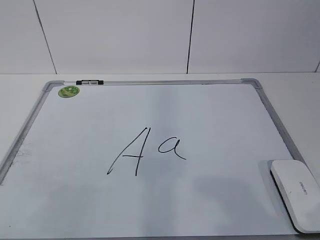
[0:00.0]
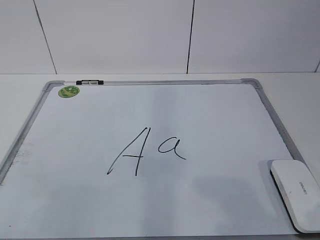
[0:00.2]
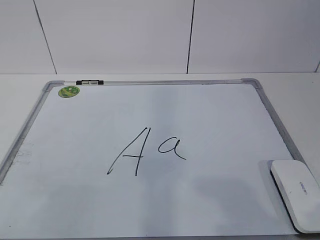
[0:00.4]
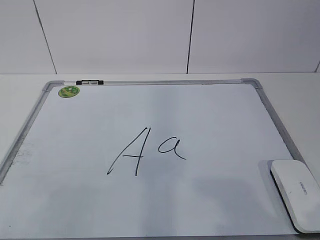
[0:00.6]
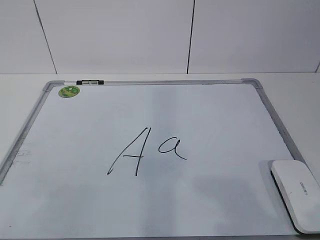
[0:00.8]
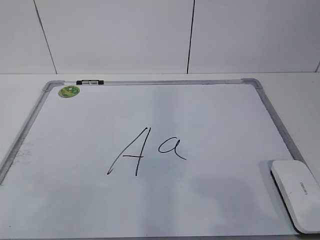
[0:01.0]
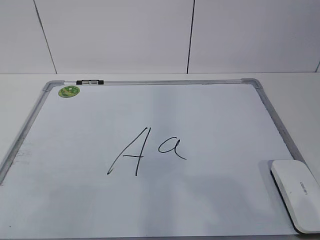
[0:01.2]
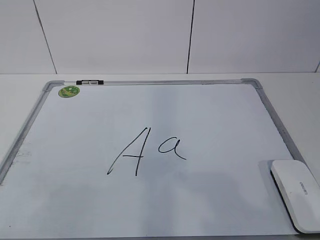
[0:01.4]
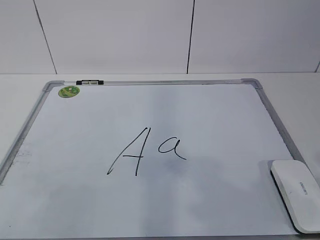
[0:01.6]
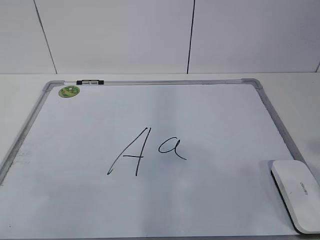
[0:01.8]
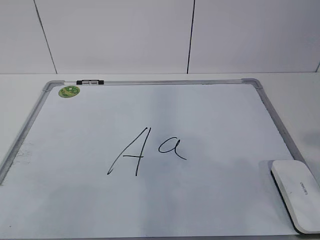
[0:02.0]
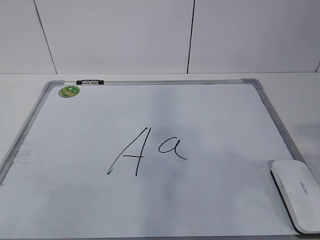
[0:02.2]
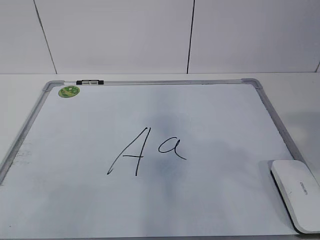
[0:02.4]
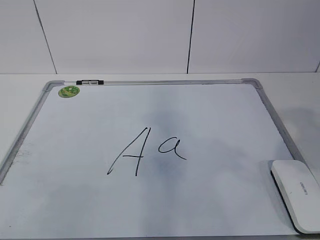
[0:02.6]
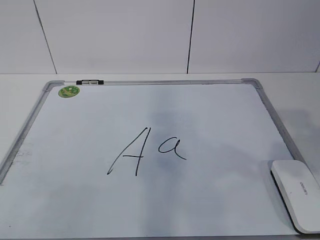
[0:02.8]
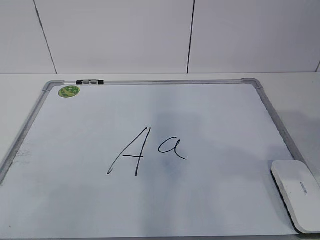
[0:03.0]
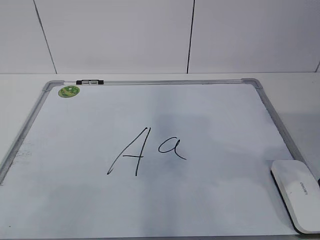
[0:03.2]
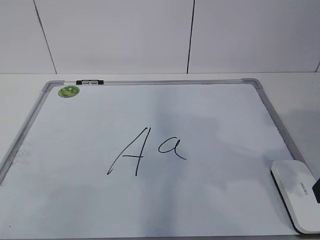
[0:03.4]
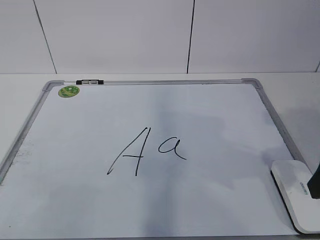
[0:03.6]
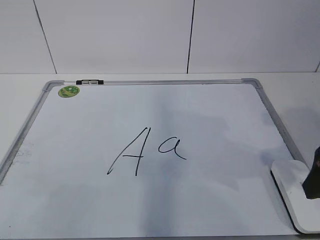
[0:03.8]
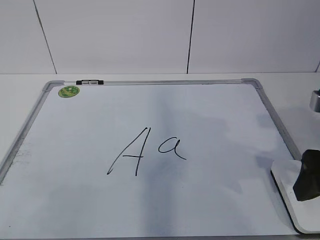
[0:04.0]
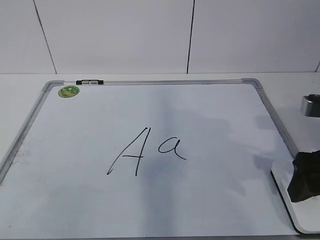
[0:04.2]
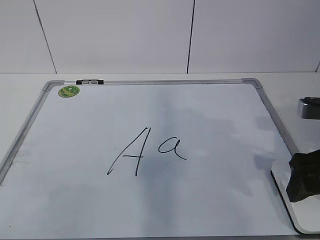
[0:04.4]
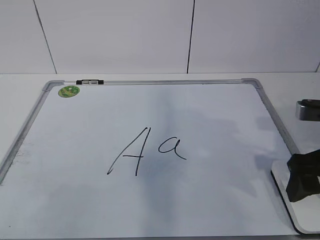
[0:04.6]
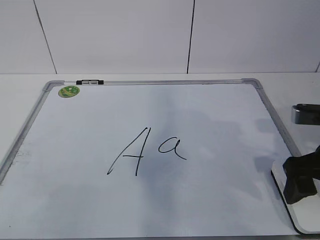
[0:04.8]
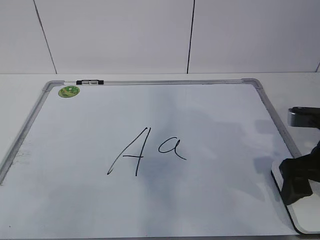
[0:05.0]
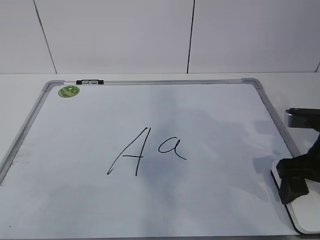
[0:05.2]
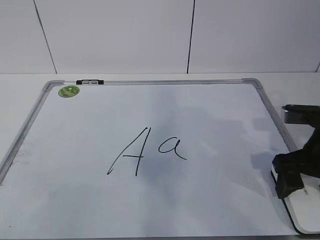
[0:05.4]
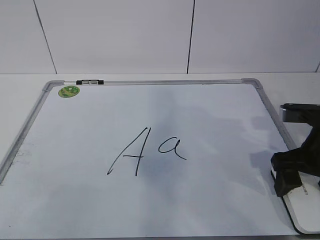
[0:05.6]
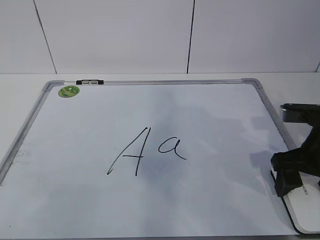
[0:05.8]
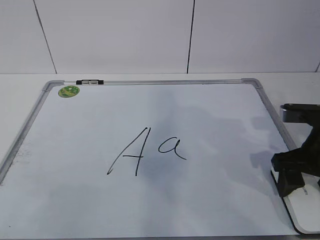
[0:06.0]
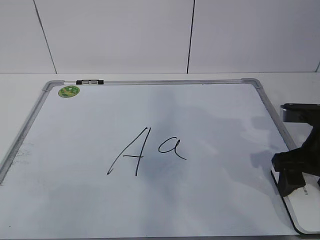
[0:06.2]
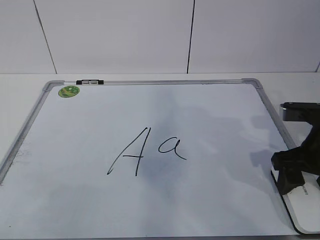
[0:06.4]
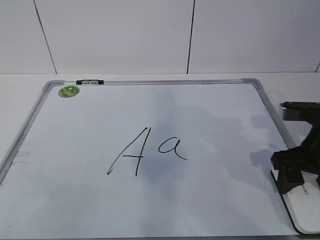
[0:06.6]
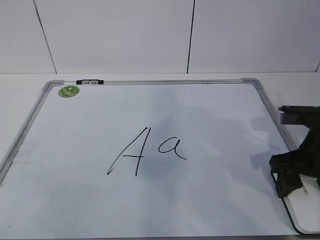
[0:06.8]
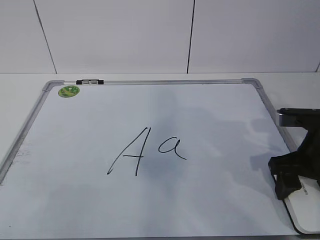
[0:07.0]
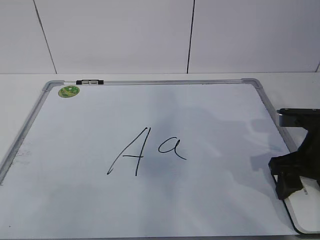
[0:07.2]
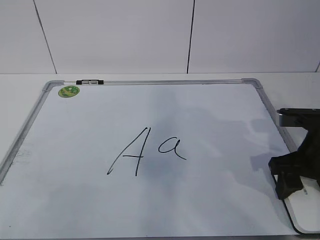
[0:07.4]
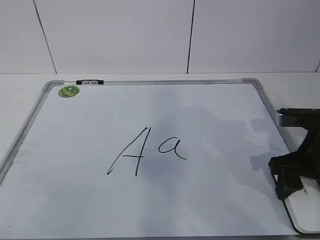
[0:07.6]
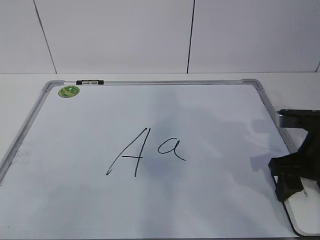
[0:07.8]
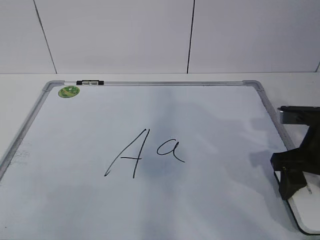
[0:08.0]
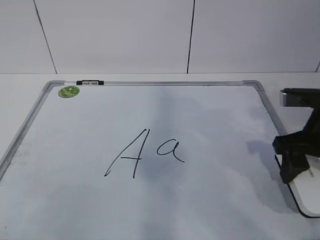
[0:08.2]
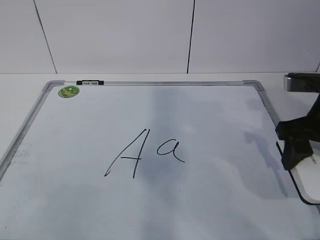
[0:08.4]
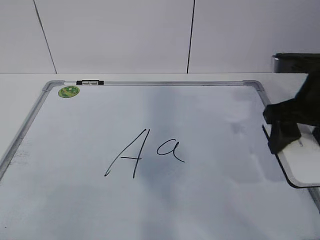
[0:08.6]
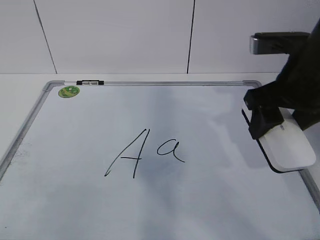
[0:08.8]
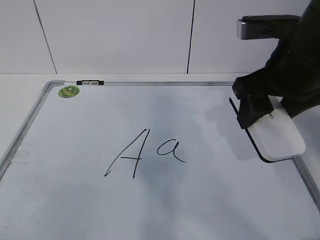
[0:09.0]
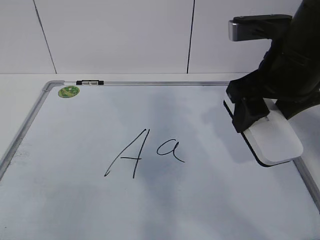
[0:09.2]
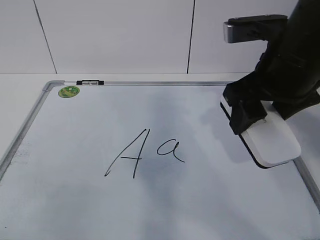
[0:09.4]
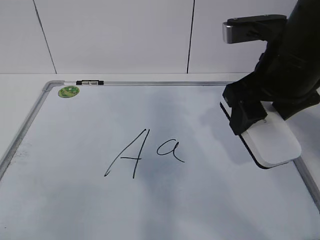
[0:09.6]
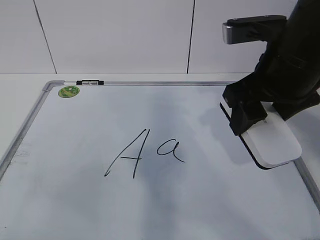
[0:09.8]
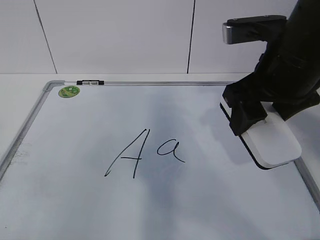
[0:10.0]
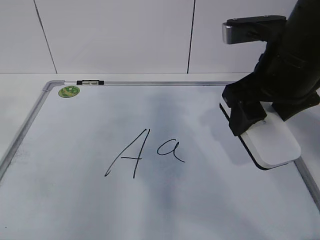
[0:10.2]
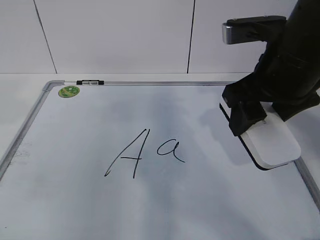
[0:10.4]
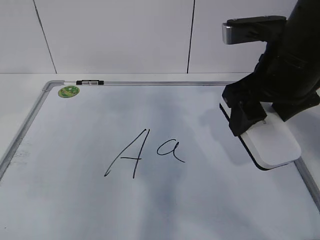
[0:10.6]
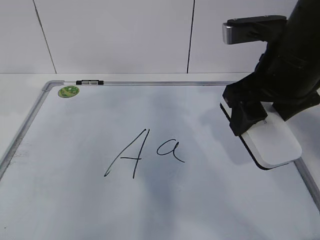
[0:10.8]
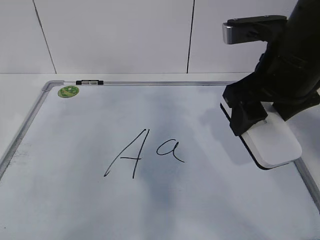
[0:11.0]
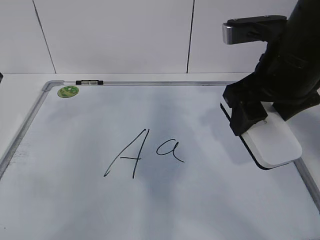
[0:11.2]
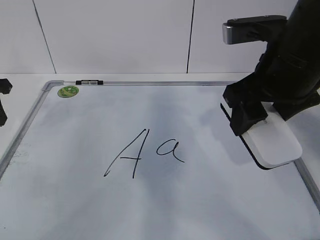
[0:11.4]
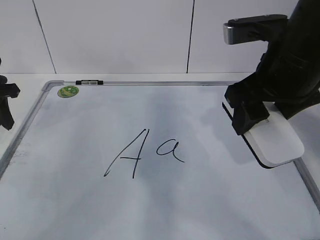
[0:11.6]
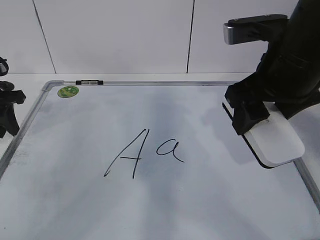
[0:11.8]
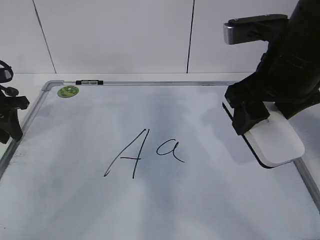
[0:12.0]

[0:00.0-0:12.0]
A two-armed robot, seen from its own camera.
Task of the whole recording: pick up the eraser on the blackboard and erase the letter "a".
Step, 0:00.0 to 0:05.6: Grab the eraser with your right hand.
Step, 0:05.8 to 0:10.6: Hold the drawing board steady with your left hand.
0:03.0 to 0:04.4: The right gripper is displaced downward and forward by approximately 10 cm.
0:04.4 to 0:06.0: The right gripper closes.
0:06.0 to 0:07.6: The right gripper closes up.
0:07.6 to 0:09.0: The right gripper is displaced upward and to the left by approximately 15 cm.
0:10.4 to 0:12.0: The left gripper travels forward and downward by some 30 cm.

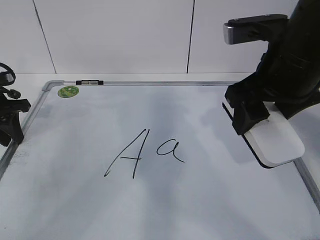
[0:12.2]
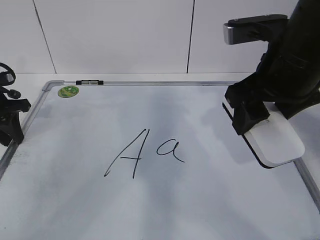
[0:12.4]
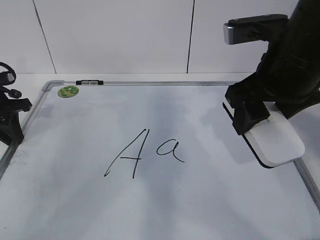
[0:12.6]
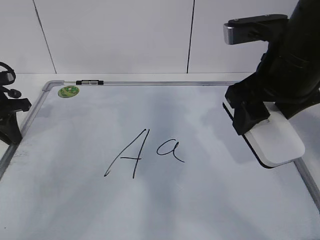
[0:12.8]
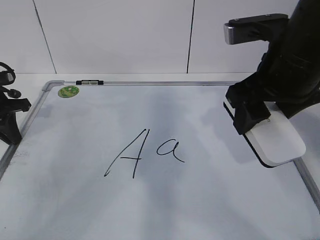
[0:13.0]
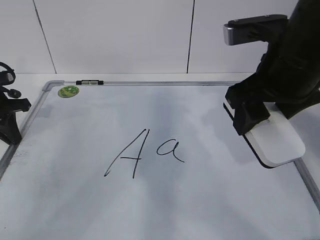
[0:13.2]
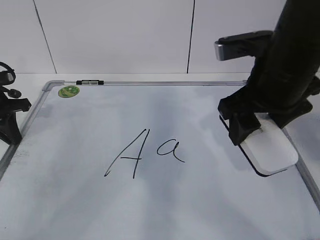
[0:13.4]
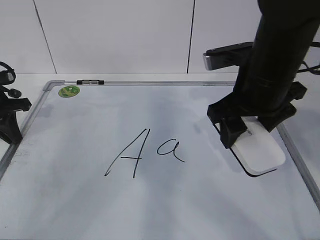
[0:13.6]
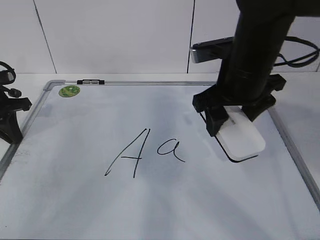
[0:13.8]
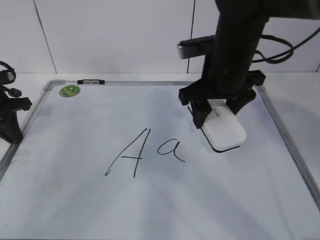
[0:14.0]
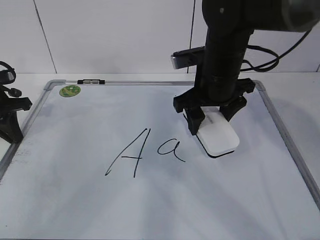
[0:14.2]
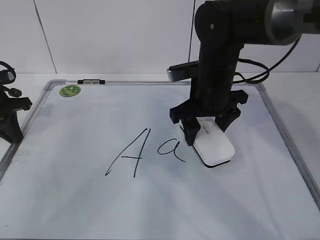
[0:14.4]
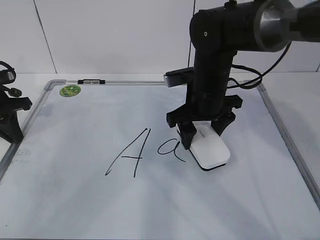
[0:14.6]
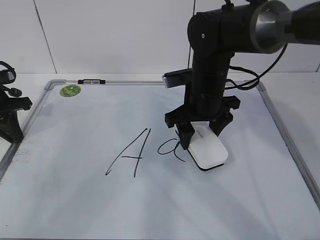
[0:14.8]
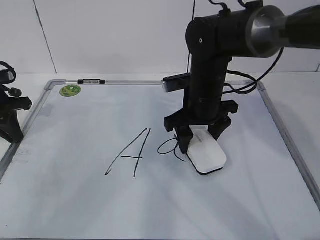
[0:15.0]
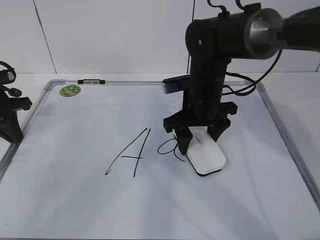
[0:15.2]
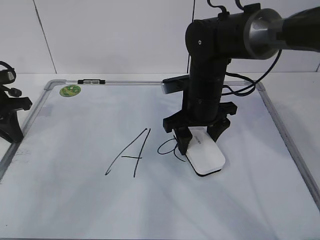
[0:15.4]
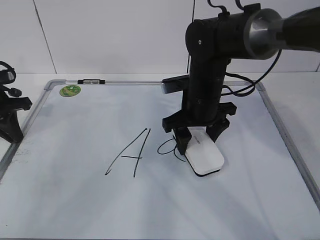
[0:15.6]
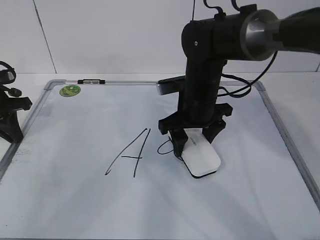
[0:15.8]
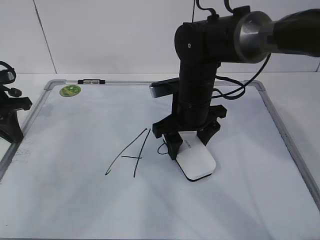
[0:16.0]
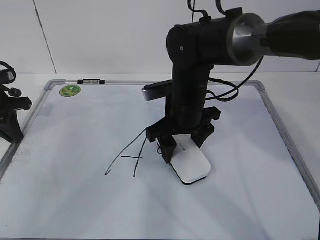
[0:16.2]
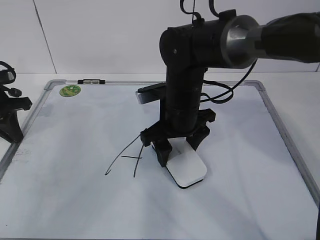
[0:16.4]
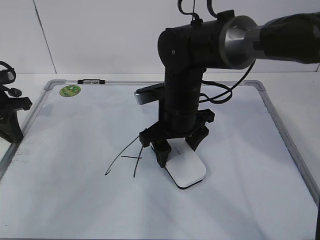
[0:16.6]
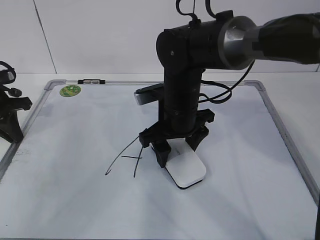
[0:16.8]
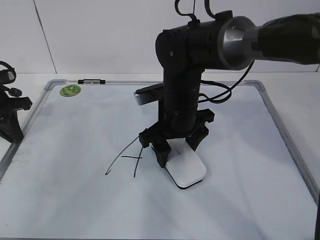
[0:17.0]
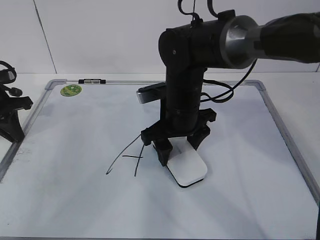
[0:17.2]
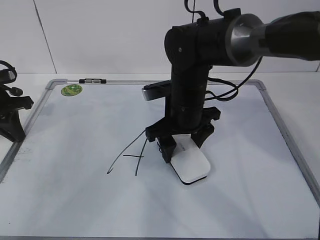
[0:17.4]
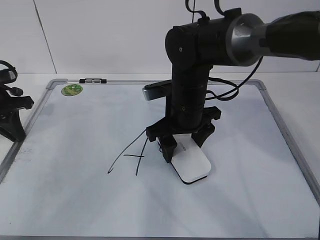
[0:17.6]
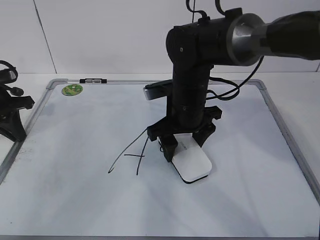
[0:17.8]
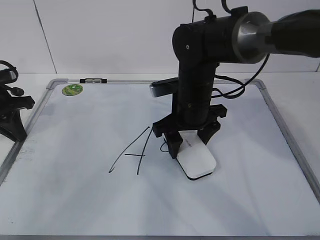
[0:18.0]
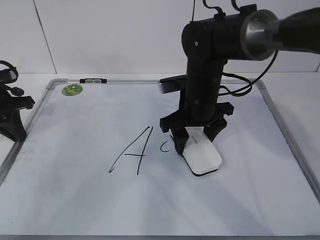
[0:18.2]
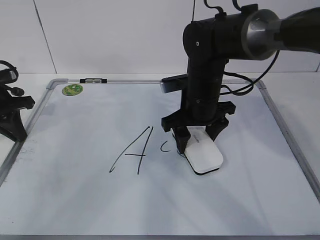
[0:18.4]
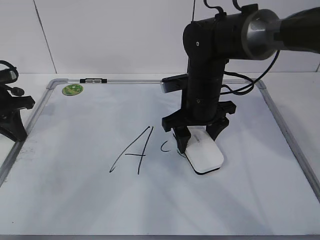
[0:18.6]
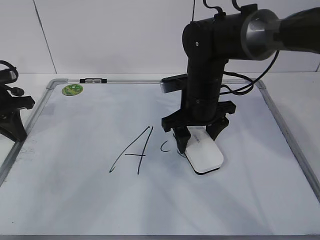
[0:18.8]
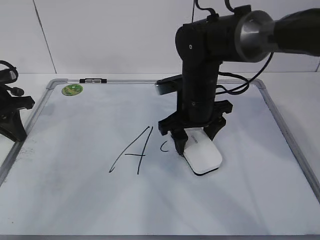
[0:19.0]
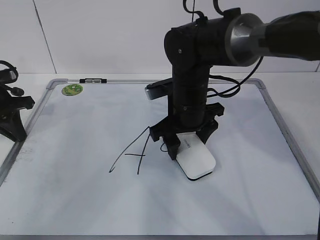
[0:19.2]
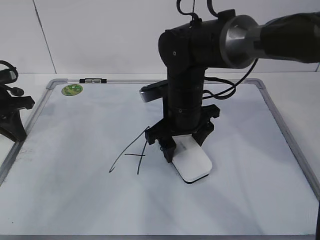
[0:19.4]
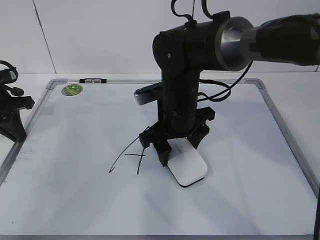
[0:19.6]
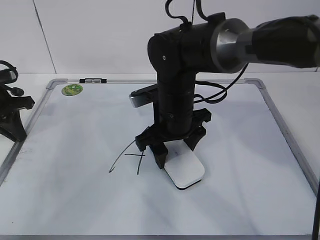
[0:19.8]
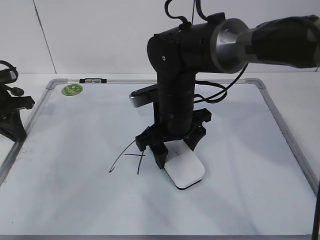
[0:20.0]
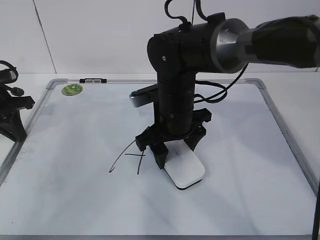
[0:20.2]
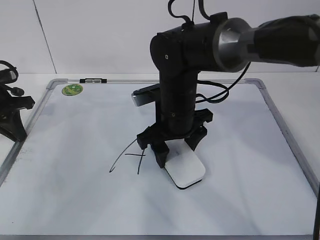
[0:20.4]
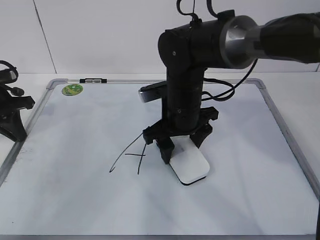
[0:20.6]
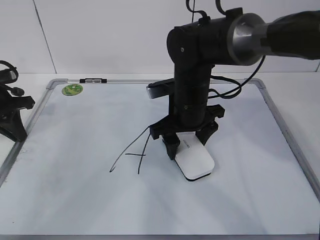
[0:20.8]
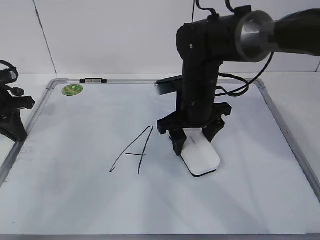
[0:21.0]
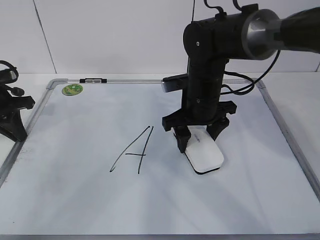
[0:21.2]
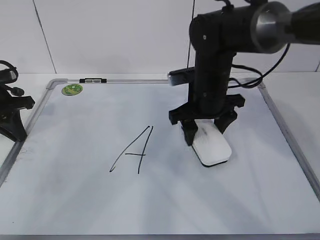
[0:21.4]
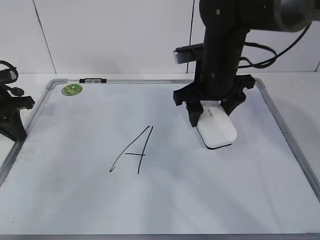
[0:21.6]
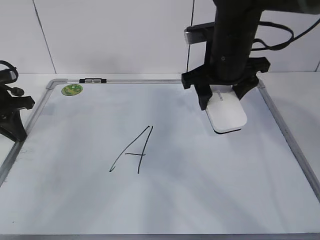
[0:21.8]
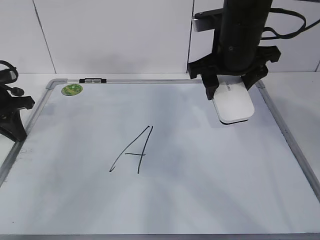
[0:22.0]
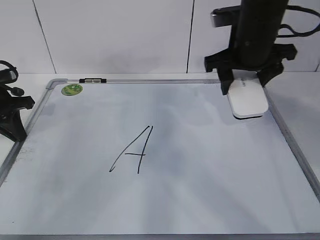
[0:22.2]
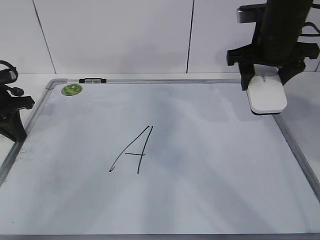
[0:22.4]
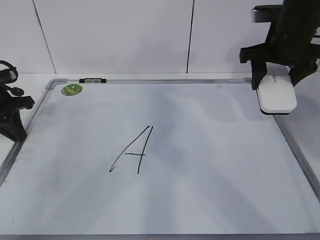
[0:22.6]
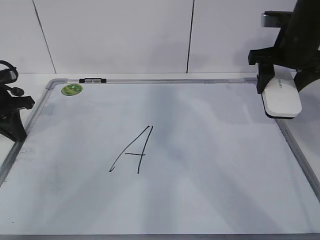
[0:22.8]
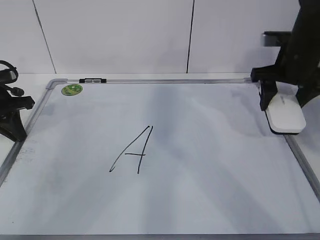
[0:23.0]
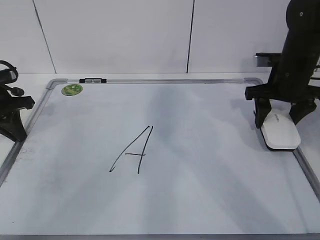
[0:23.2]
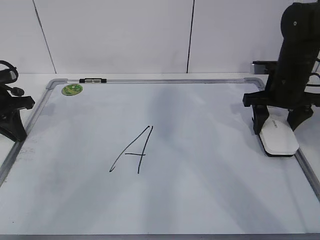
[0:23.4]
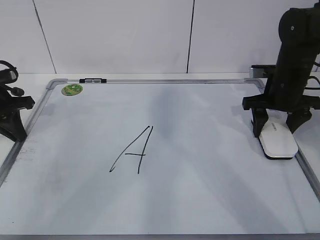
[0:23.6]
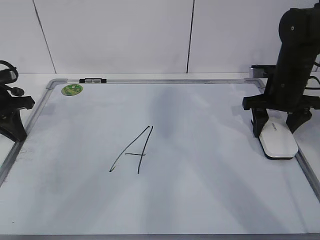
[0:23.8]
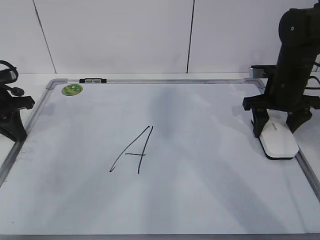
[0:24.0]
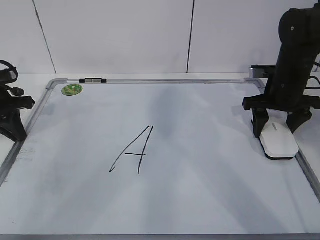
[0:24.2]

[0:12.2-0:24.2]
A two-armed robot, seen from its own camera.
Task of the whole recording: pick up the eraser on the blackboard and erase the letter "a".
Step, 0:12.2 to 0:17.6: Erase the letter a with your right hand.
Step, 0:17.8 to 0:20.6: Put down the eraser with your right hand.
0:12.2 to 0:13.8: The left gripper closes its fingers. Meanwhile the right gripper travels forward by approximately 5 cm.
0:13.8 to 0:15.2: The right gripper heads downward and forward, covering approximately 10 cm.
0:15.2 to 0:16.6: The right gripper moves about 5 cm.
0:16.6 to 0:18.2: The right gripper ends up some 5 cm from where it was.
0:18.2 to 0:19.8: The right gripper heads to the left, covering approximately 5 cm.
0:19.8 to 0:21.2: The right gripper goes some 5 cm to the right.
0:21.2 to 0:22.6: The right gripper goes some 15 cm to the right and upward.
0:22.6 to 0:24.2: The right gripper goes roughly 10 cm downward.
